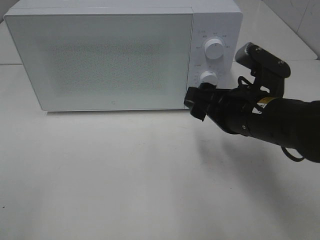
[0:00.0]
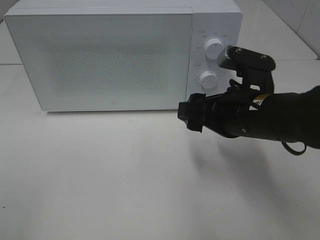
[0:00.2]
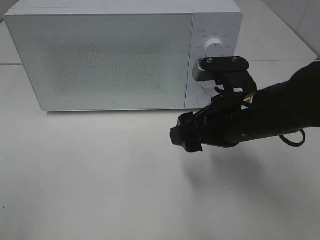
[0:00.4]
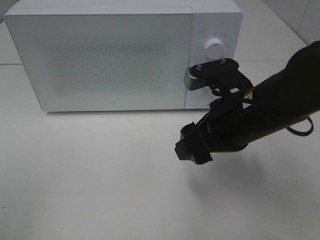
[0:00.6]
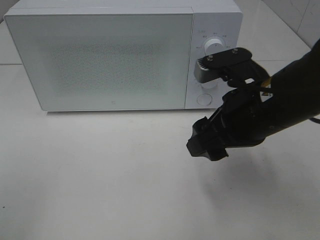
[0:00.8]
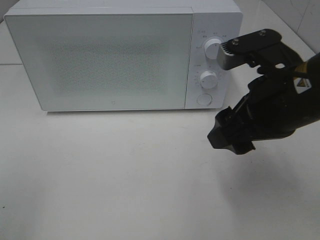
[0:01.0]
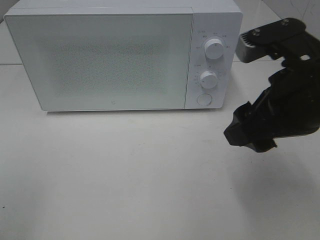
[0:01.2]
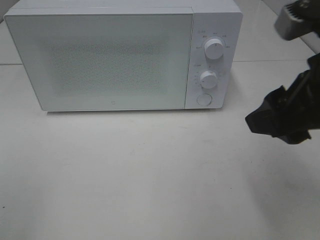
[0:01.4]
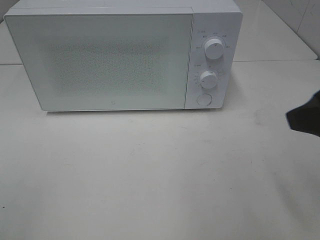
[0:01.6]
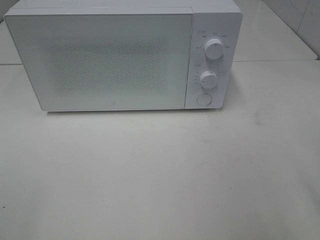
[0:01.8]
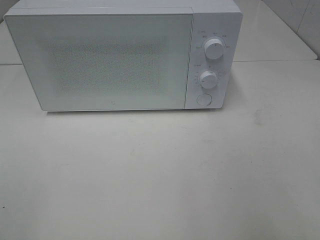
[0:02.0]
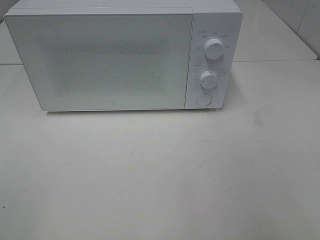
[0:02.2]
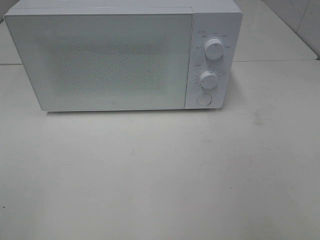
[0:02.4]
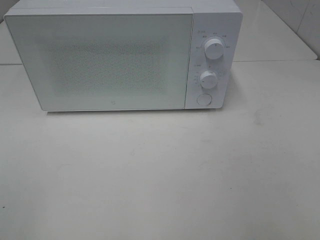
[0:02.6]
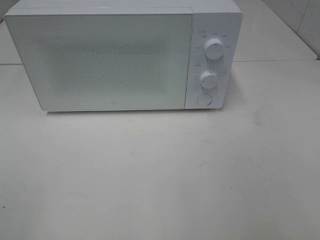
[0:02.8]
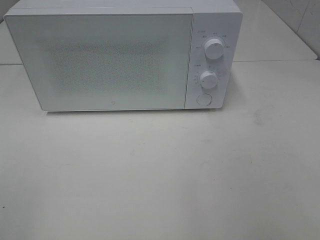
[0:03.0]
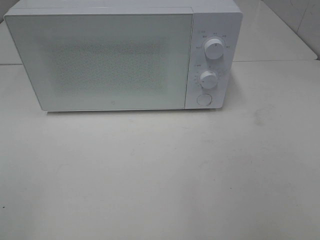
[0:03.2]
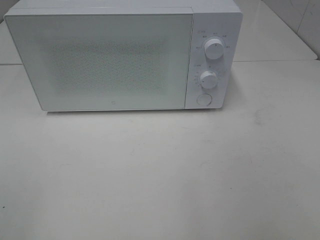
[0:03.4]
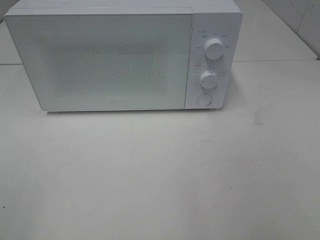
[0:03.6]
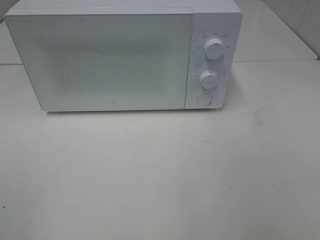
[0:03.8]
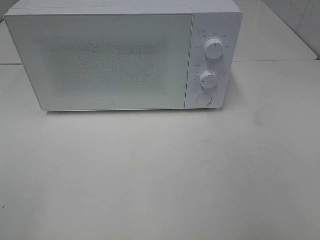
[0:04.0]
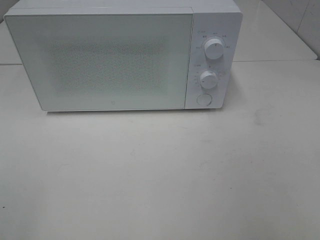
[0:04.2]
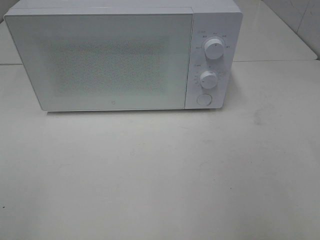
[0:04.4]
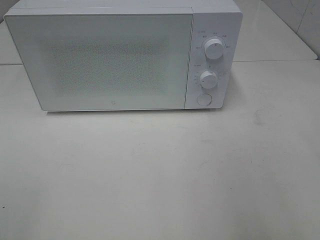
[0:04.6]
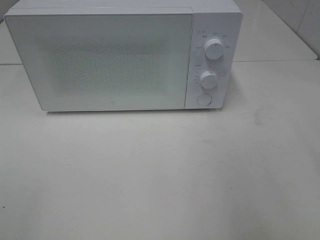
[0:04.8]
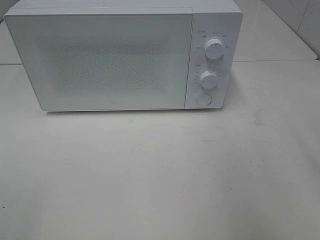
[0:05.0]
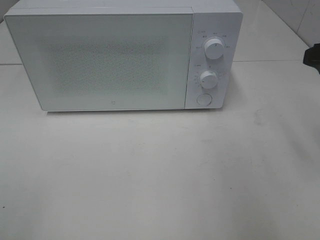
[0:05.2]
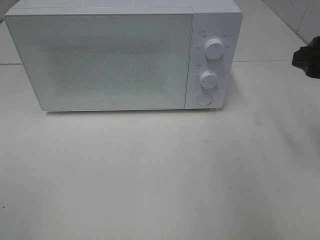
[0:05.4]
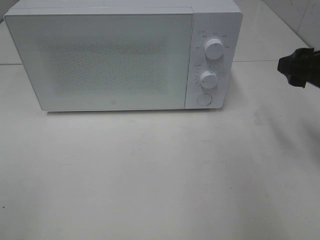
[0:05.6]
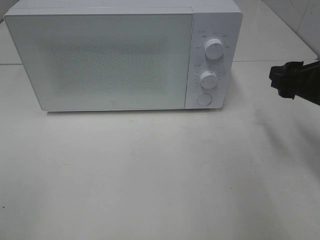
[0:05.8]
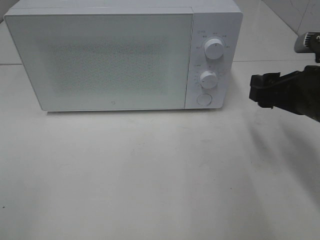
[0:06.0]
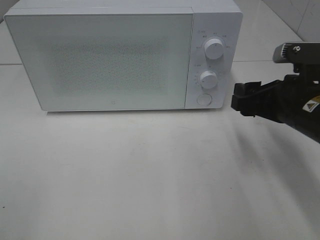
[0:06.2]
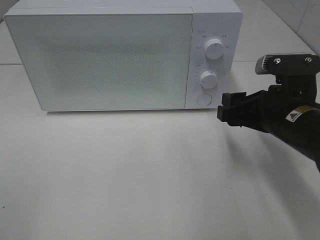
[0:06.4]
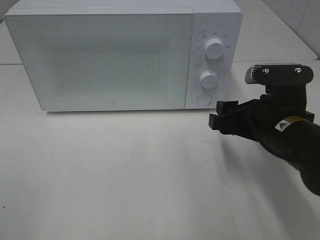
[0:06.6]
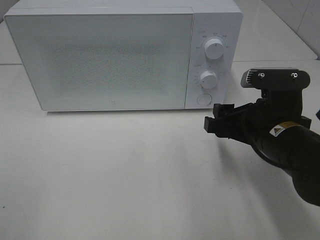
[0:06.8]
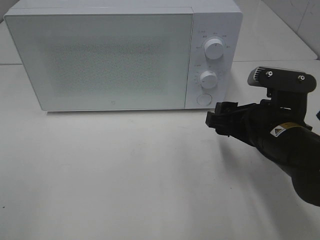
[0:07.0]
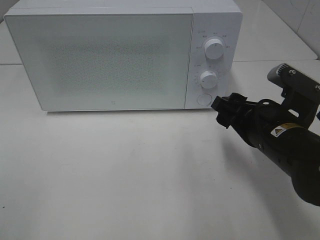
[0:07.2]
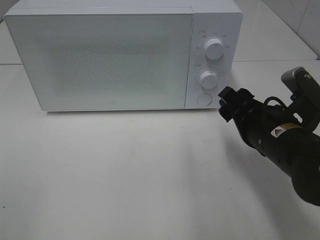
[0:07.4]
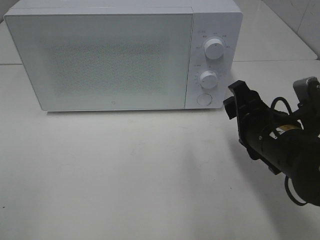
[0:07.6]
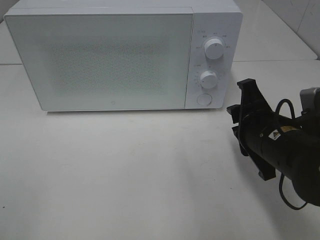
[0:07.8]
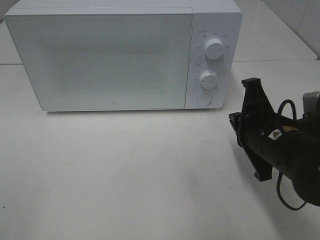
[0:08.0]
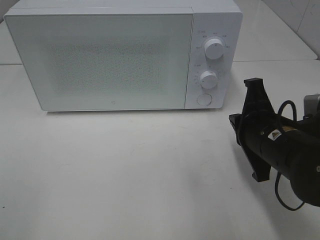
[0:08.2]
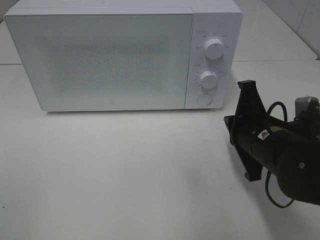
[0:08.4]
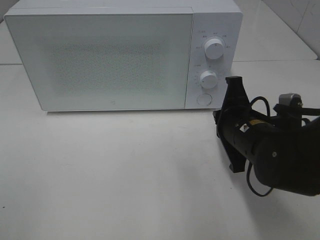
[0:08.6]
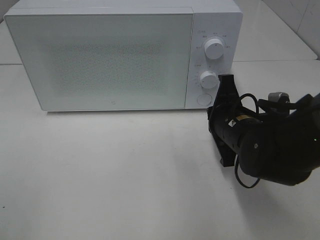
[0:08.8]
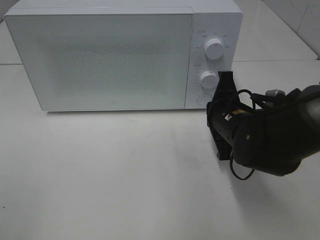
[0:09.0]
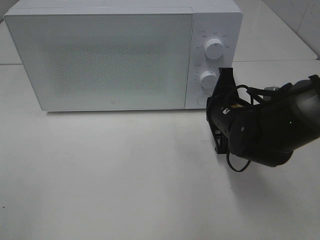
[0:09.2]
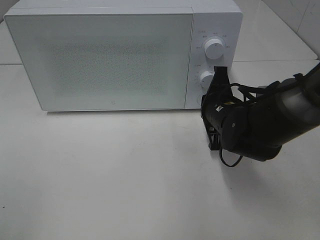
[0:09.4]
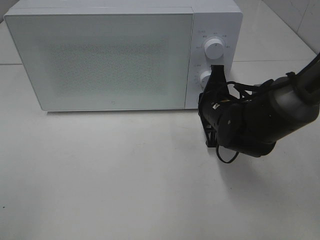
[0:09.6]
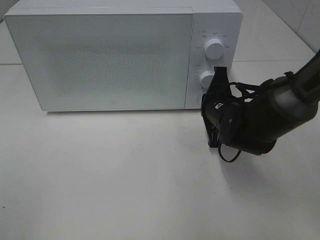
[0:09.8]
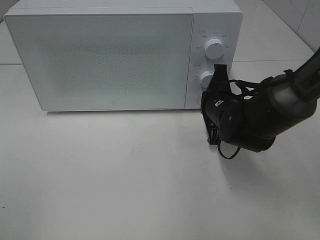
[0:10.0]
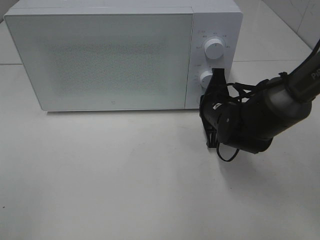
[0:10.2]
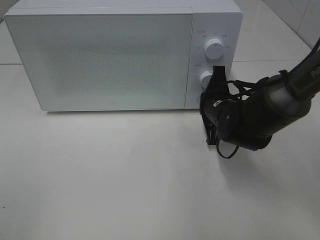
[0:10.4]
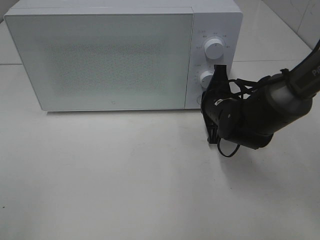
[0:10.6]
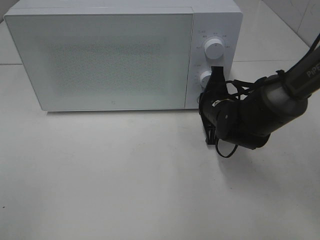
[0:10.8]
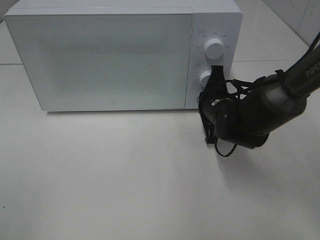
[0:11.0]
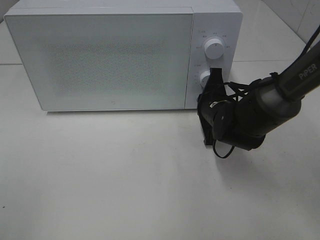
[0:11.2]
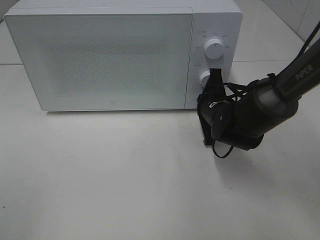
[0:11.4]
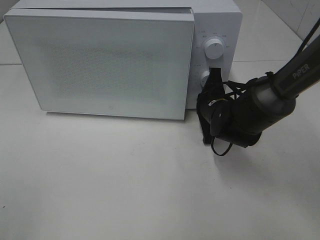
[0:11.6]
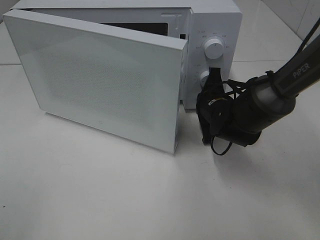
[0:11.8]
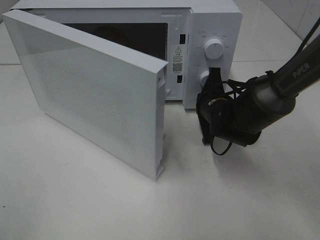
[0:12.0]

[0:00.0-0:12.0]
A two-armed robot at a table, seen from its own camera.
Task of the whole recording: Heat the burger.
0:00.0 to 0:01.6: The right gripper is displaced upward, backward and to the right by approximately 20 cm.
0:01.6 to 0:03.0: The right gripper is displaced backward and to the right by roughly 15 cm.
0:04.4 to 0:06.0: The right gripper travels forward and downward by roughly 20 cm.
0:06.0 to 0:07.6: The right gripper moves to the left, about 5 cm.
0:07.6 to 0:09.0: The right gripper moves forward, about 5 cm, and closes up.
0:09.0 to 0:10.4: The right gripper heads forward, covering approximately 5 cm.

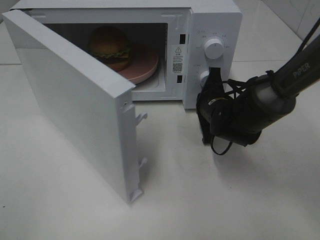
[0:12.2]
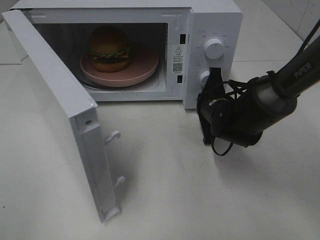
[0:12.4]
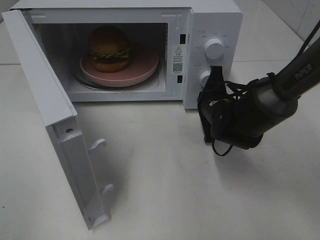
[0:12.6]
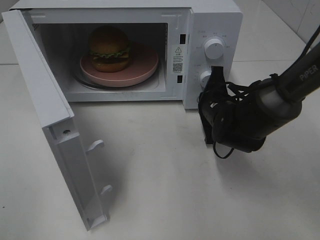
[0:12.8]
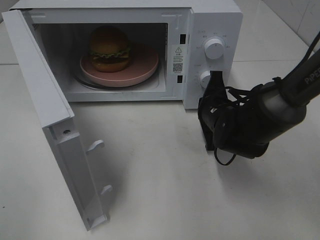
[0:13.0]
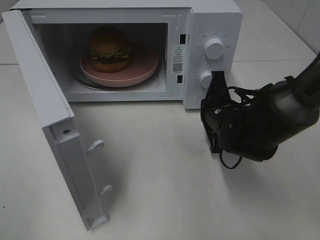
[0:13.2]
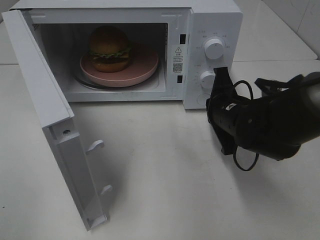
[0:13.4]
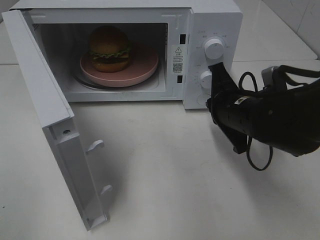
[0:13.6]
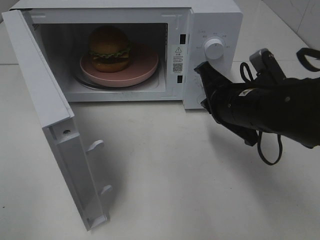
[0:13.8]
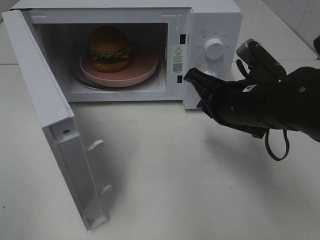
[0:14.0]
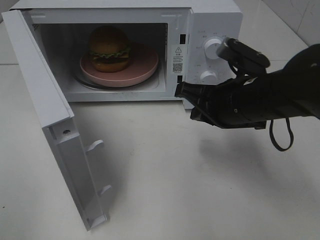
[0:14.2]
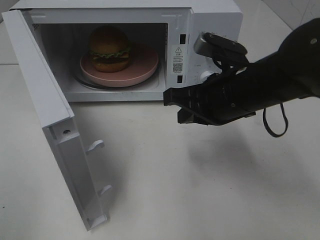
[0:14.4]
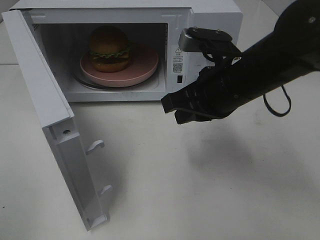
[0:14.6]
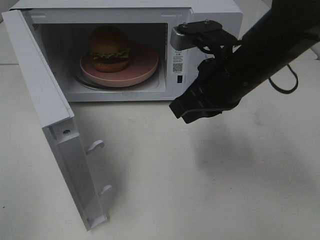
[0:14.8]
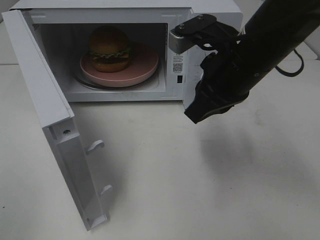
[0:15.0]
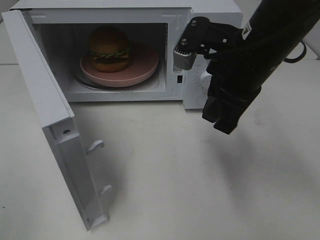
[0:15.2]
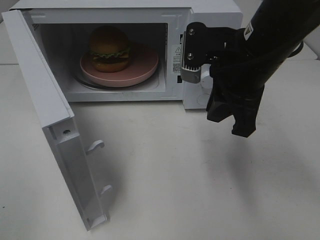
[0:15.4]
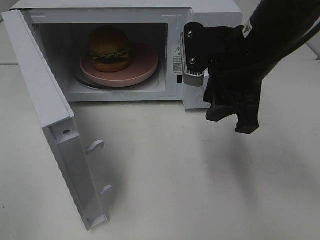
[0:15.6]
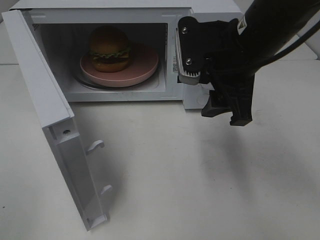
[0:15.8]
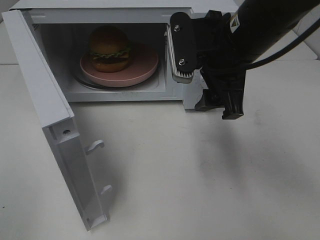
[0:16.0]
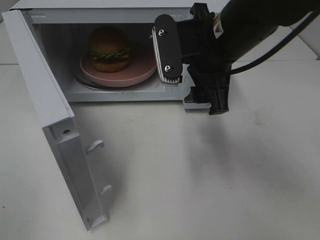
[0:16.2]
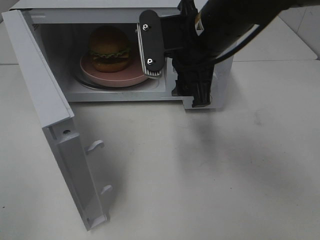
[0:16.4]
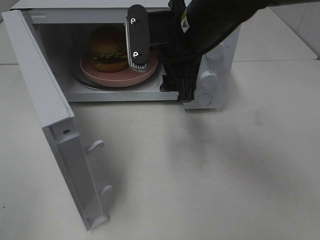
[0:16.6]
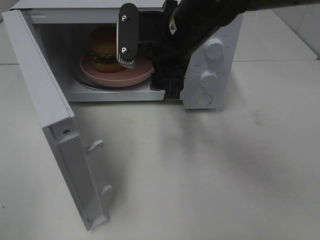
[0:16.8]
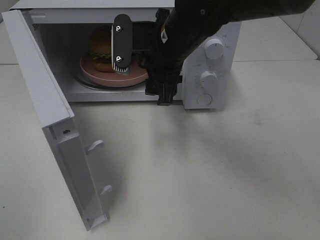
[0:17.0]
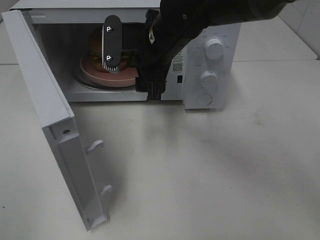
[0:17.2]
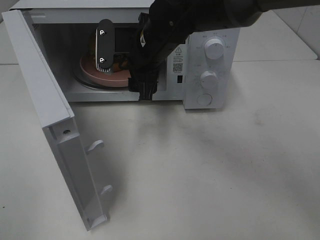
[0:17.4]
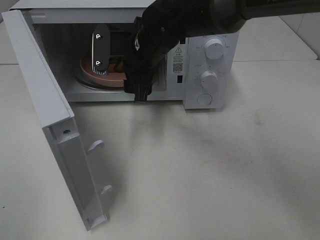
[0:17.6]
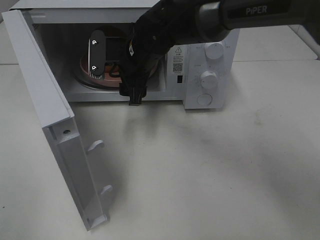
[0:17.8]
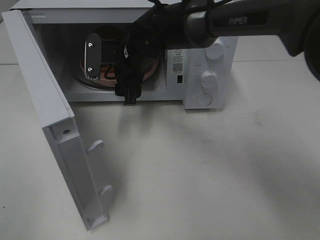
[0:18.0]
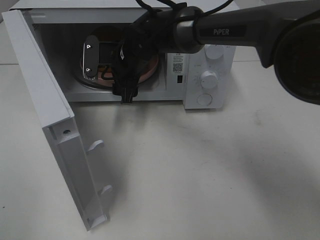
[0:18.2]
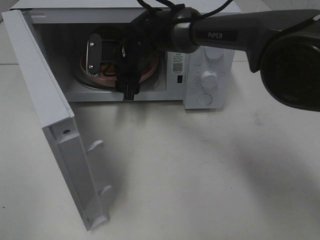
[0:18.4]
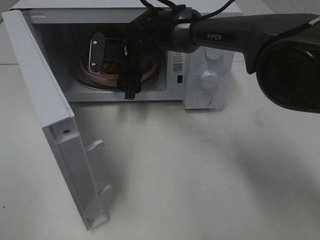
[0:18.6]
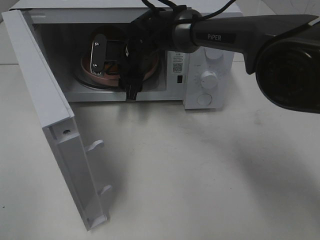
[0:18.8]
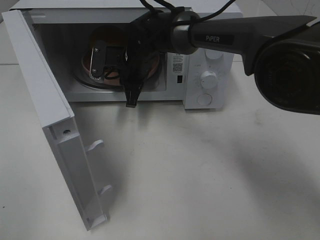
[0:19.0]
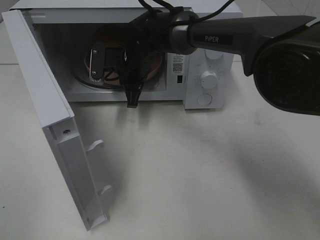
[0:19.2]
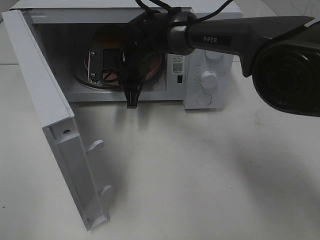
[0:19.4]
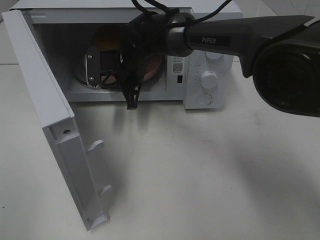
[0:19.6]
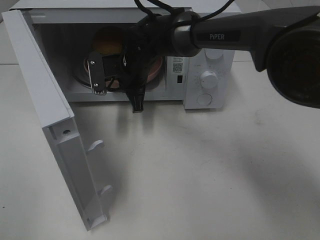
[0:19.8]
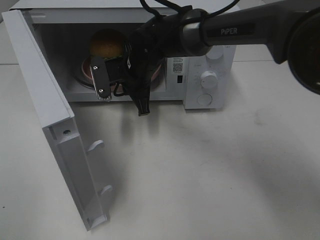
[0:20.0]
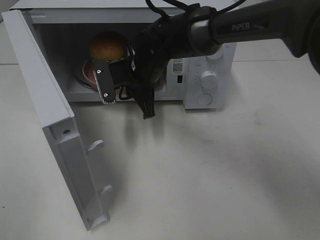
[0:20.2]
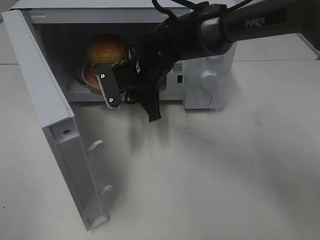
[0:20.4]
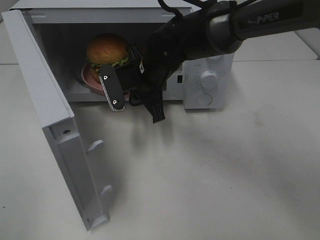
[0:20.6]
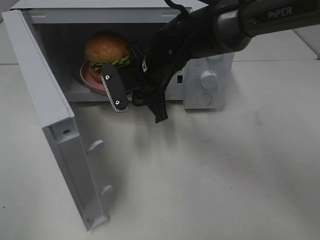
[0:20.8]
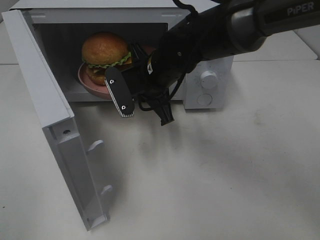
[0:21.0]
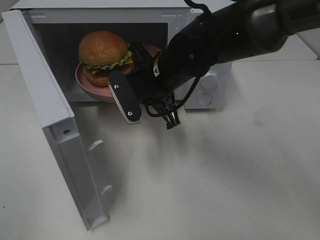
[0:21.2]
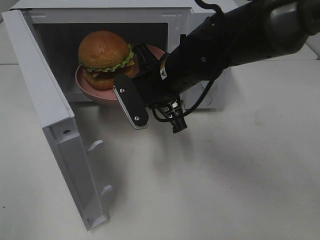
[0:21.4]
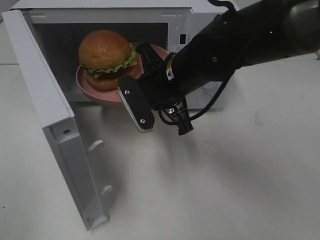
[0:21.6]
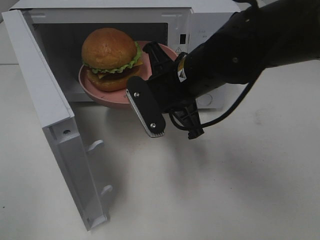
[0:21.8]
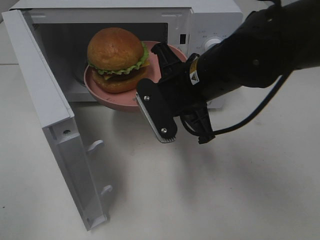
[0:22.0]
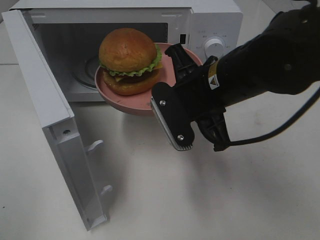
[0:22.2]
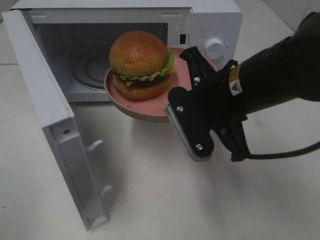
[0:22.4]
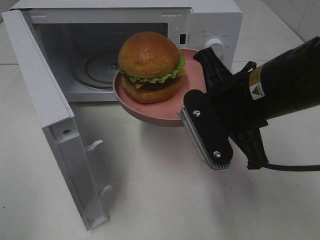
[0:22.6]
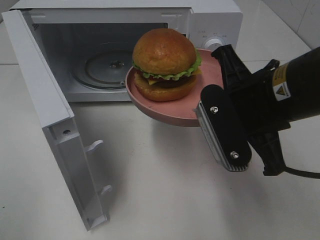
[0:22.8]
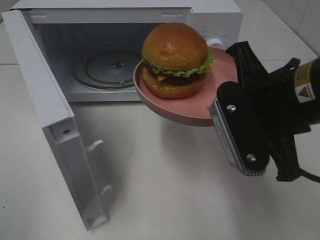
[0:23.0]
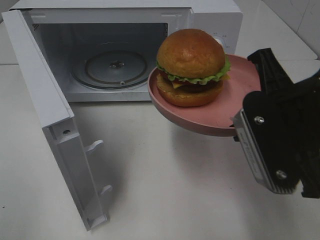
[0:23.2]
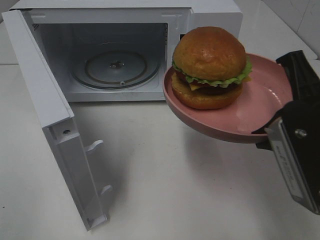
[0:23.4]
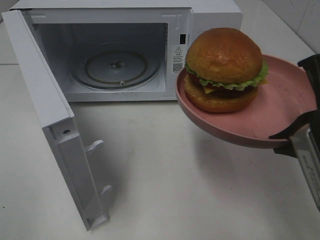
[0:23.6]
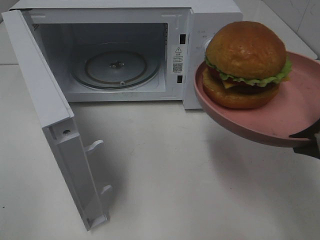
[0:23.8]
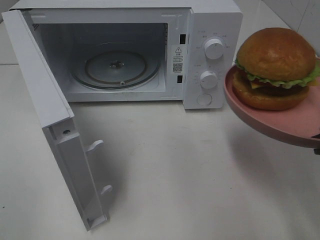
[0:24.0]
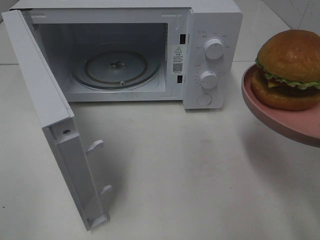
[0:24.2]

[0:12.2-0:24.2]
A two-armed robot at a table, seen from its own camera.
Task of the whole recording: Heat the burger.
Step, 0:13.6 to 0:19.4: Right hand: grab the plate with the hamburger.
0:12.2 to 0:13.8: The right gripper moves backward and upward, approximately 10 cm.
0:13.8 to 0:15.2: The right gripper heads upward, covering approximately 10 cm.
0:15.2 to 0:16.6: The right gripper moves to the left, approximately 5 cm, and opens up.
0:16.6 to 0:18.2: The right gripper shifts roughly 15 cm forward, downward and to the left.
0:18.2 to 0:19.8: The right gripper closes up.
0:19.8 to 0:21.2: The right gripper travels backward and to the right by roughly 10 cm.
0:21.2 to 0:22.6: The right gripper moves backward and to the right, approximately 15 cm.
0:22.6 to 0:24.2: The right gripper shifts roughly 15 cm to the right and backward.
